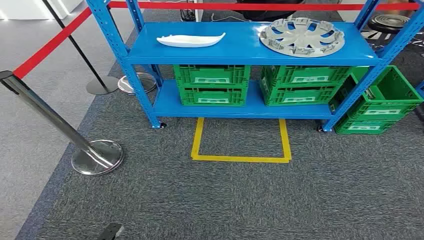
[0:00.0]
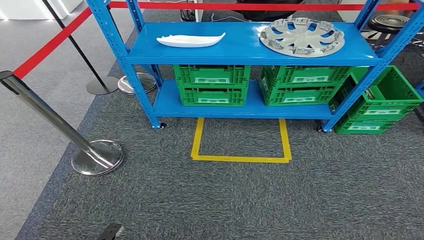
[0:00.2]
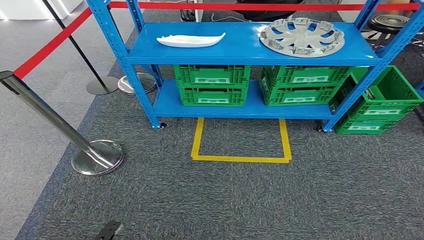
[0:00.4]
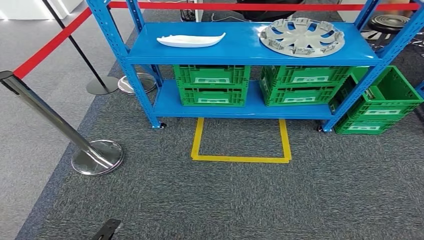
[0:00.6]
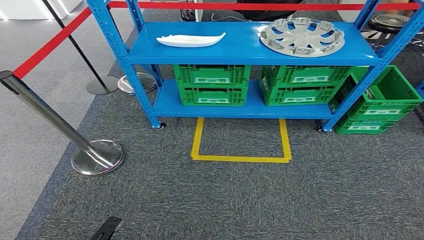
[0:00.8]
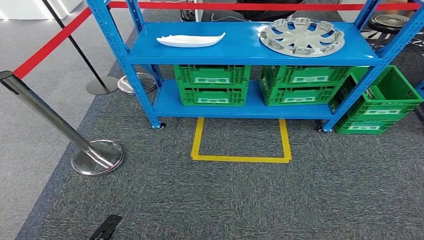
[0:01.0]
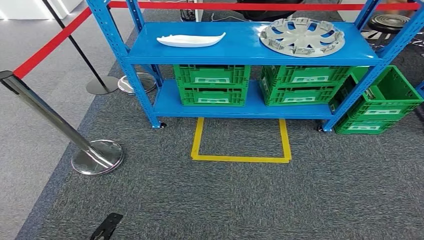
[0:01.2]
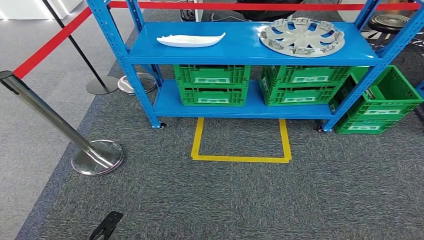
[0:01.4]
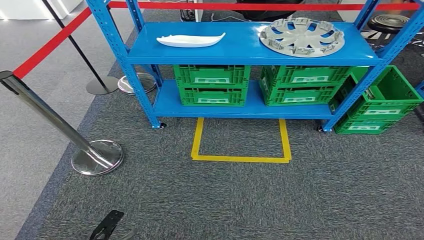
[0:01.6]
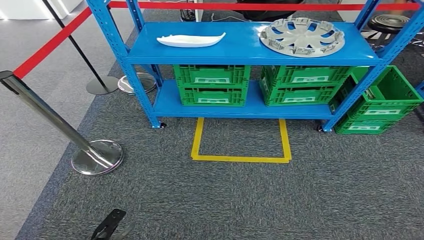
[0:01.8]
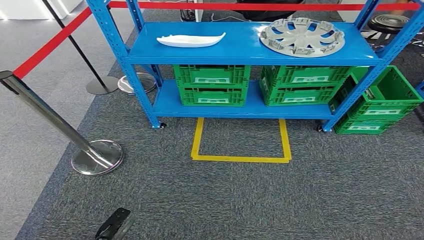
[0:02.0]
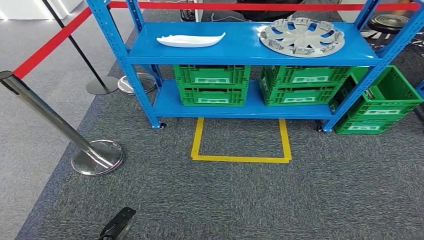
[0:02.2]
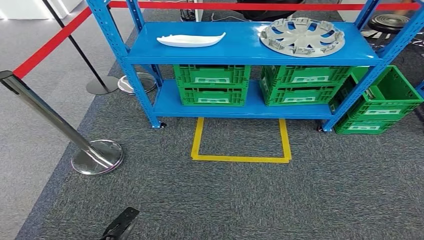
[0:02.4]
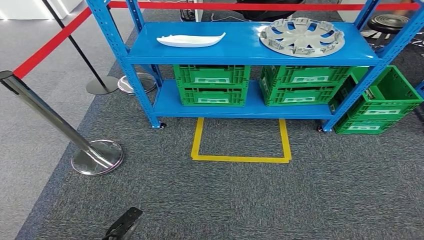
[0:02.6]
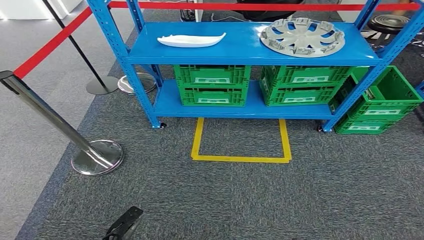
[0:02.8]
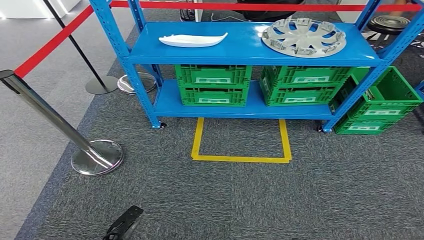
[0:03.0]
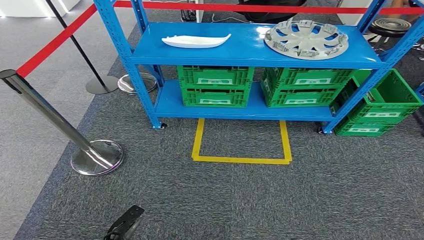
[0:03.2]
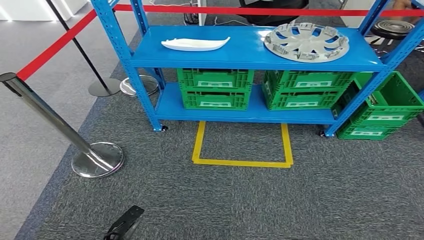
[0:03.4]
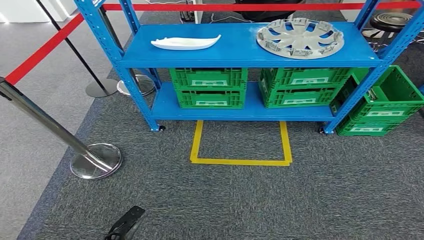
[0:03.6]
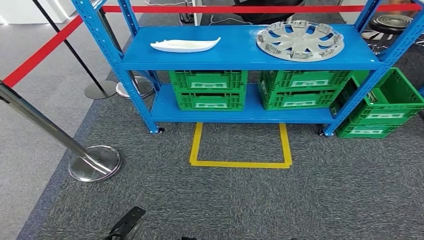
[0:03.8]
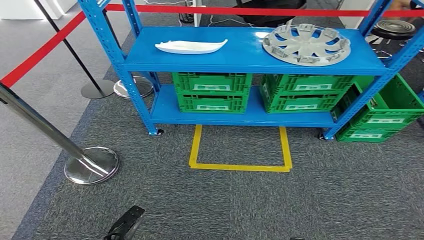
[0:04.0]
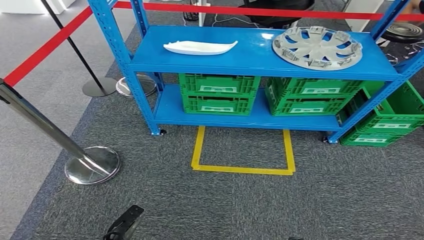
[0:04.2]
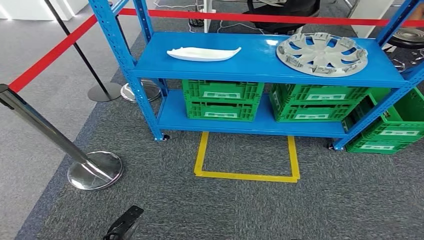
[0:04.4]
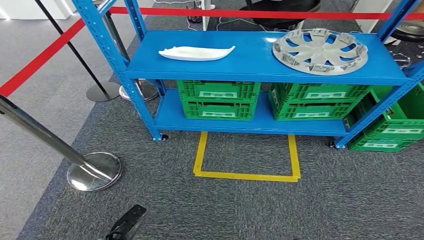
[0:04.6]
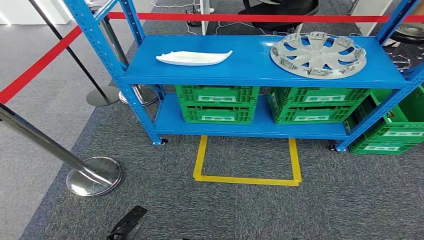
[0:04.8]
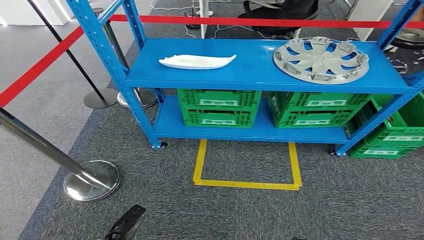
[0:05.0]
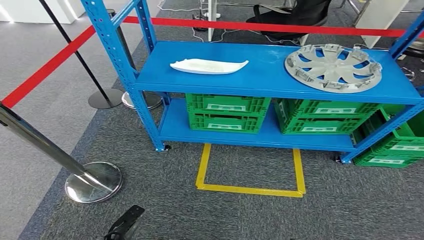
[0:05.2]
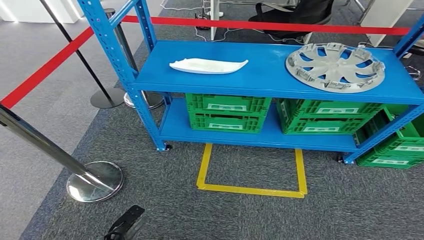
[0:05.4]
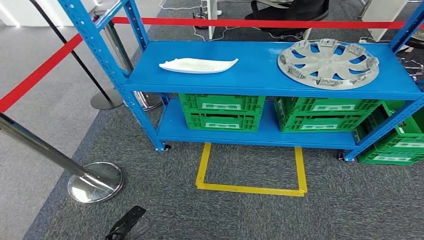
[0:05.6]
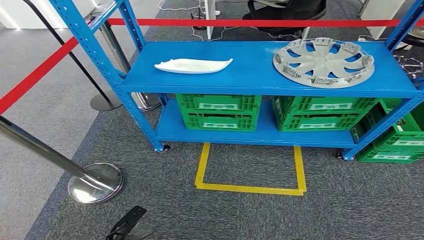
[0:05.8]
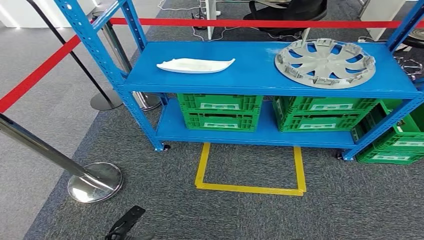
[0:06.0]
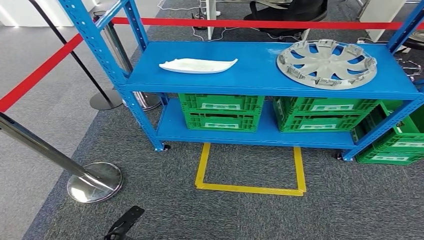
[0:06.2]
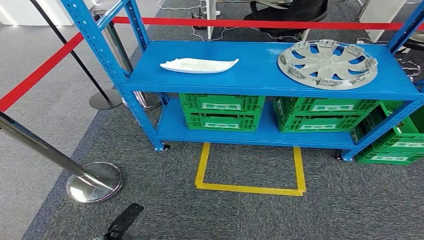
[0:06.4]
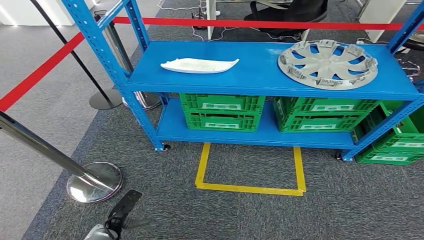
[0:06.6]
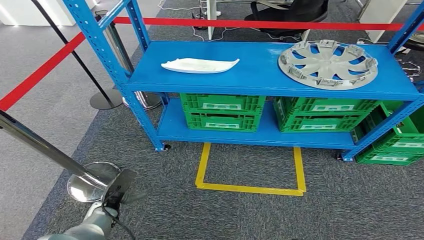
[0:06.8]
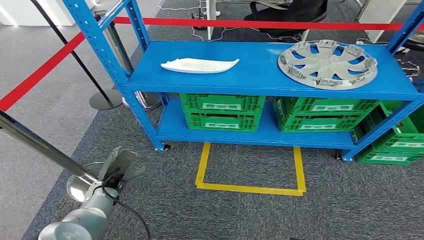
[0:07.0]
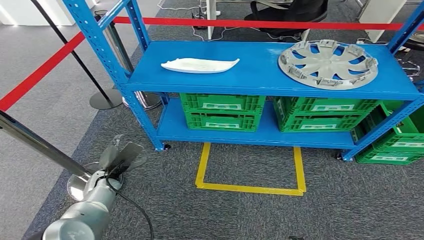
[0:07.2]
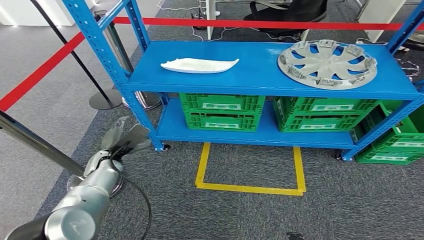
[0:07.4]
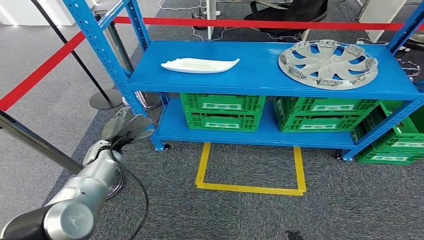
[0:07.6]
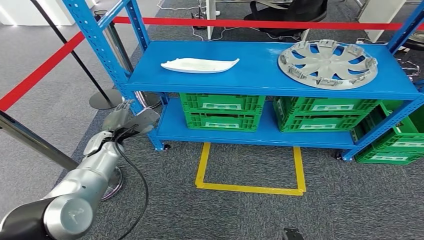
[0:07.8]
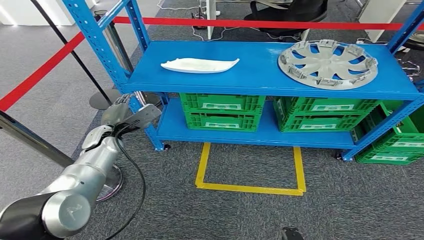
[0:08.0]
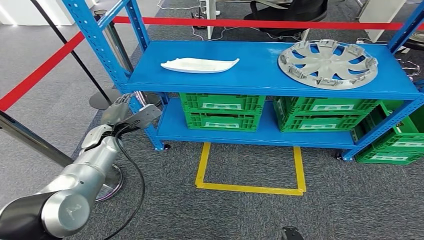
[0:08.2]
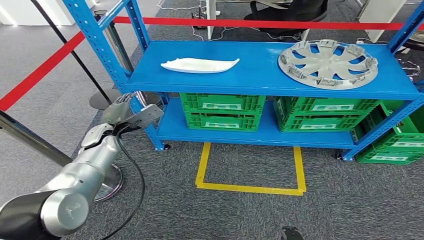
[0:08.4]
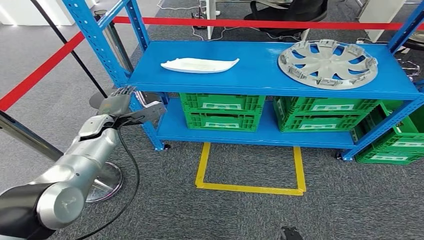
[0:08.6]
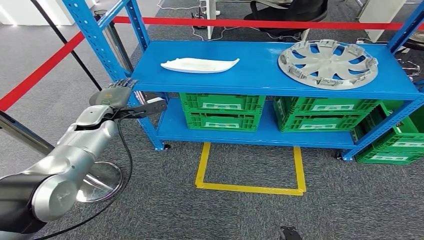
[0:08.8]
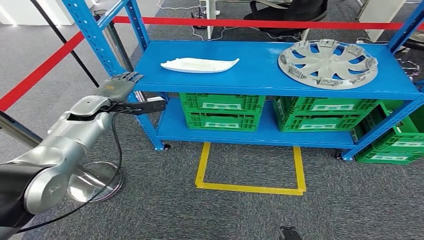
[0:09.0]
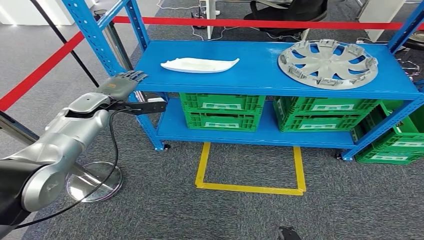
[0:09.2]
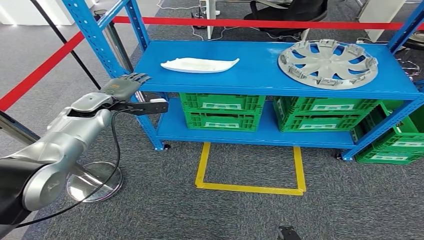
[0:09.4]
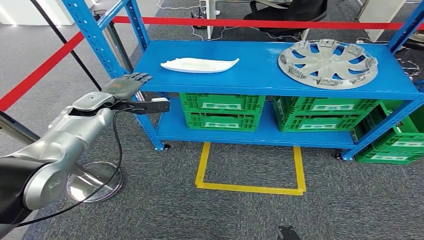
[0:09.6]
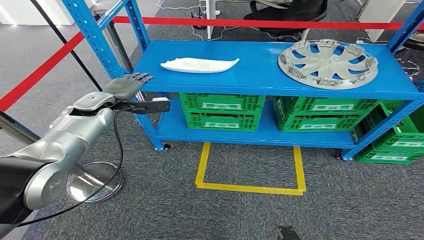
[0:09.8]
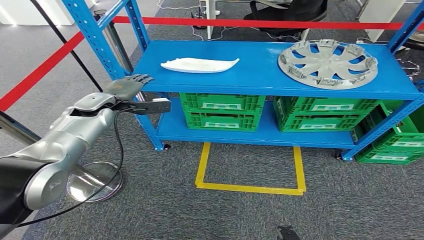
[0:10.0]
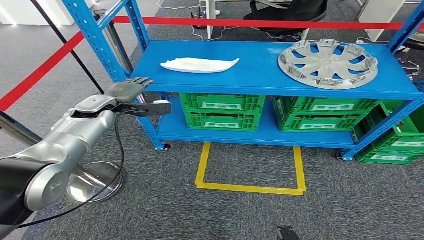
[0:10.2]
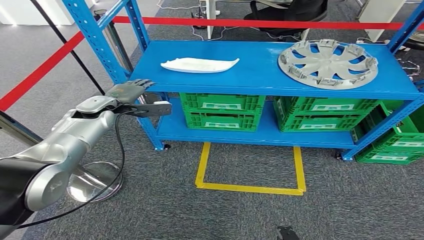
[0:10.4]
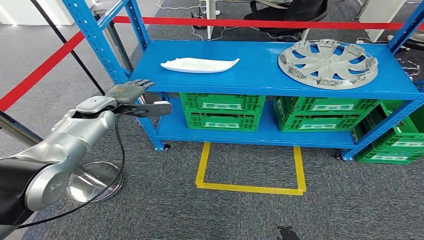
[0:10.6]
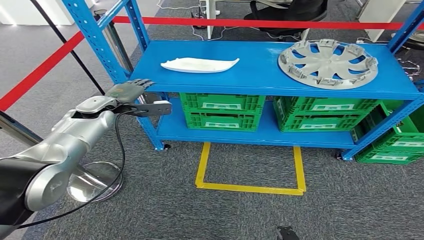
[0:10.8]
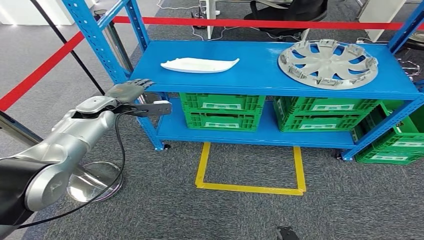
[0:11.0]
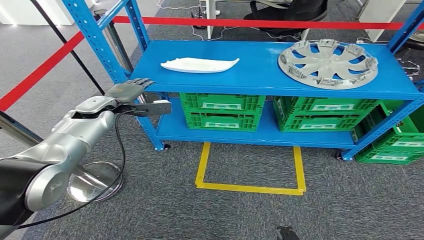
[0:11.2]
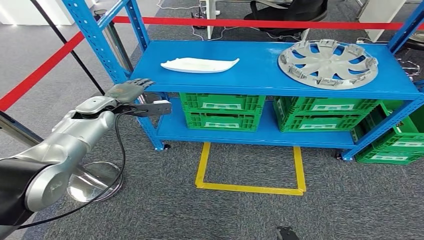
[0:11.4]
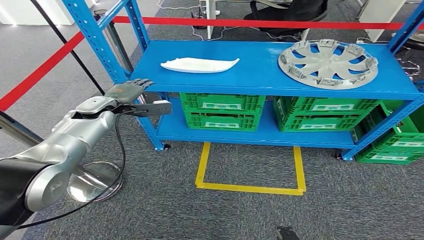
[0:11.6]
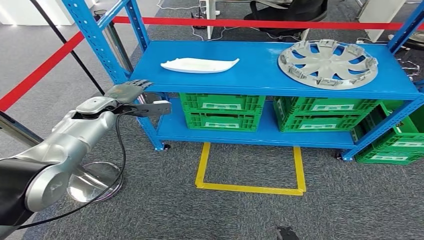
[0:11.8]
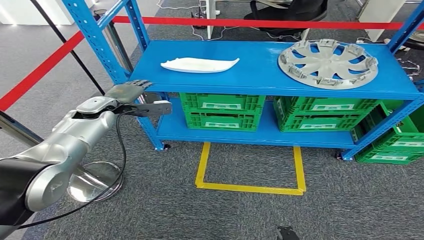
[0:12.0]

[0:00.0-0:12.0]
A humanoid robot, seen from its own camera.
0:01.6 to 0:03.0: The right hand shifts by approximately 5 cm.
0:06.0 to 0:07.6: The left hand heads forward and upward, covering approximately 30 cm.
0:07.6 to 0:09.0: The left hand travels upward and forward by about 15 cm.
0:09.0 to 0:10.4: The hands stay close to where they were, moving slightly.
0:10.4 to 0:12.0: Neither hand changes place.

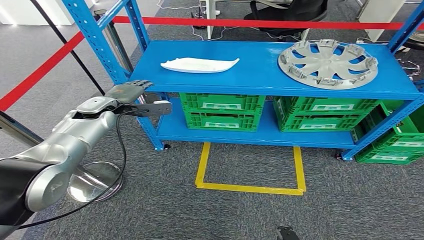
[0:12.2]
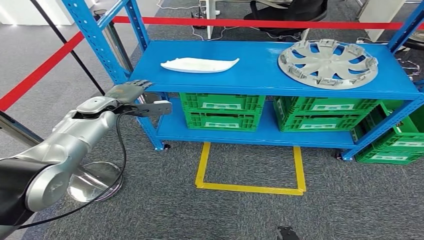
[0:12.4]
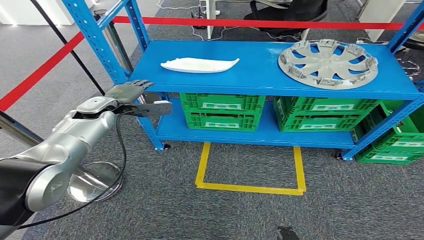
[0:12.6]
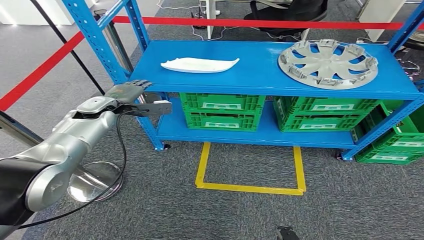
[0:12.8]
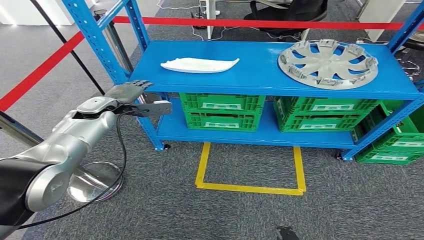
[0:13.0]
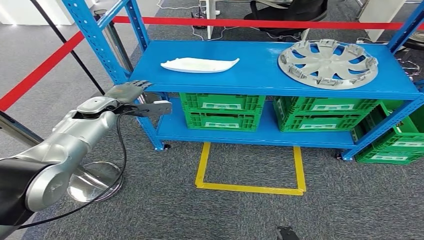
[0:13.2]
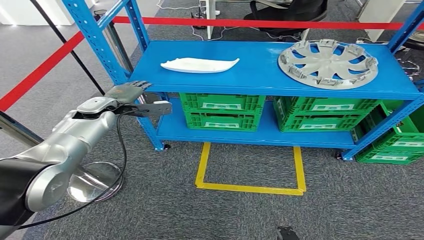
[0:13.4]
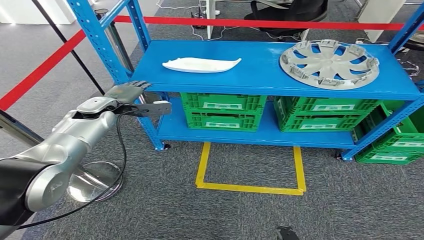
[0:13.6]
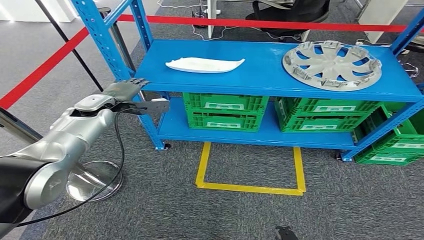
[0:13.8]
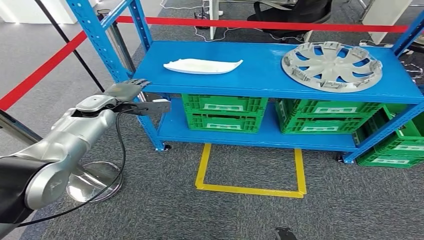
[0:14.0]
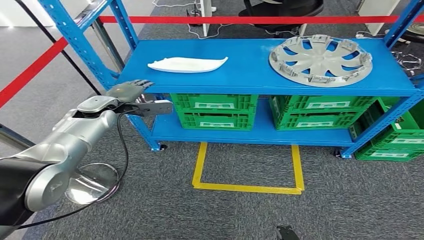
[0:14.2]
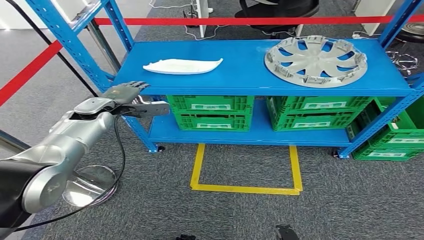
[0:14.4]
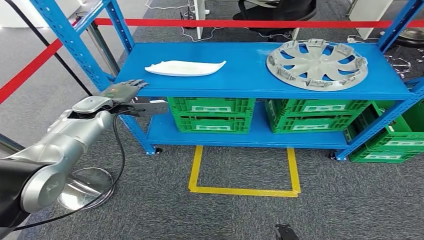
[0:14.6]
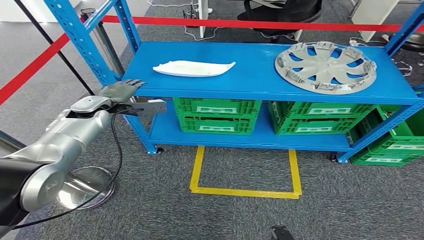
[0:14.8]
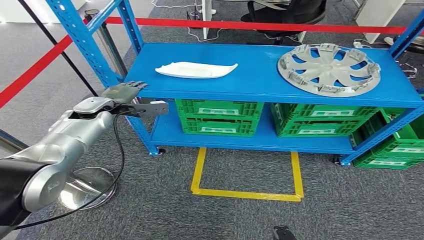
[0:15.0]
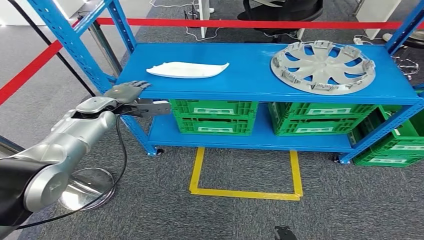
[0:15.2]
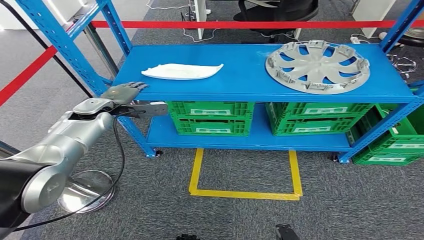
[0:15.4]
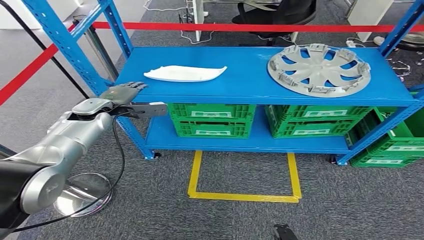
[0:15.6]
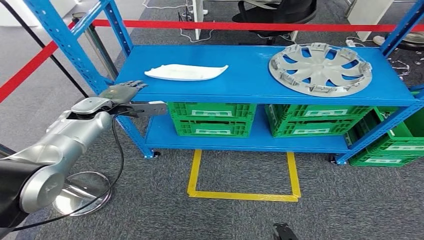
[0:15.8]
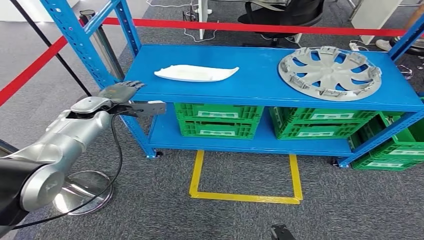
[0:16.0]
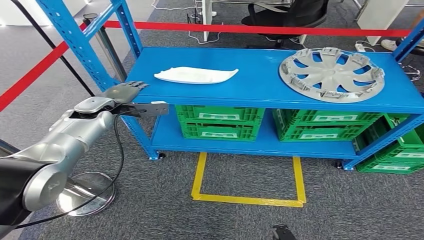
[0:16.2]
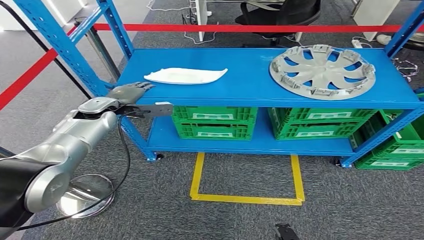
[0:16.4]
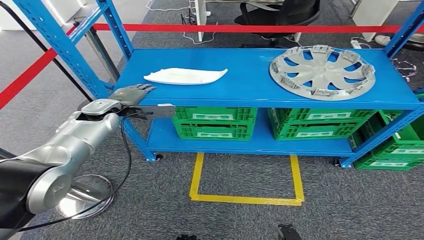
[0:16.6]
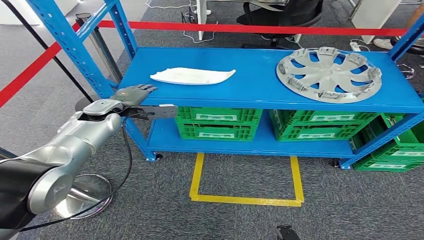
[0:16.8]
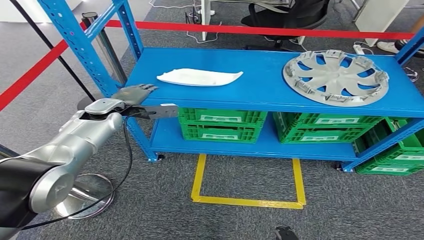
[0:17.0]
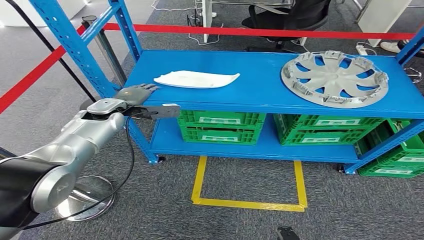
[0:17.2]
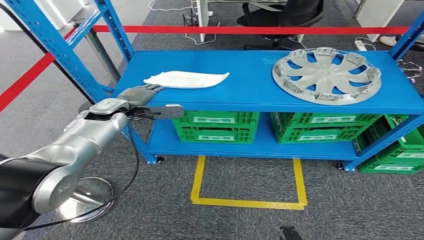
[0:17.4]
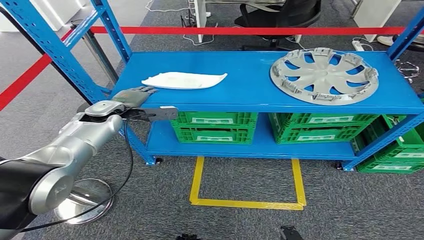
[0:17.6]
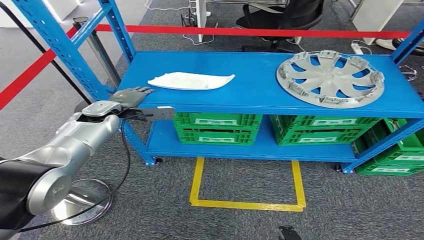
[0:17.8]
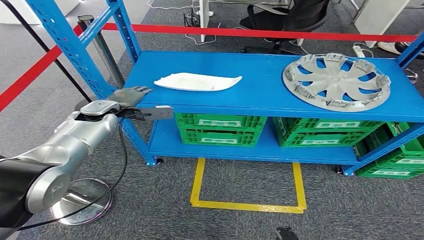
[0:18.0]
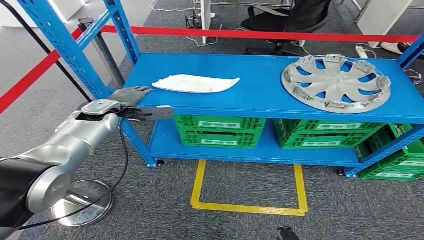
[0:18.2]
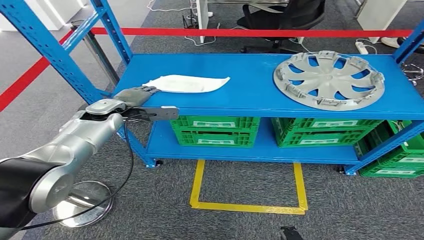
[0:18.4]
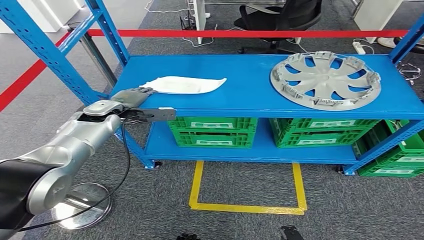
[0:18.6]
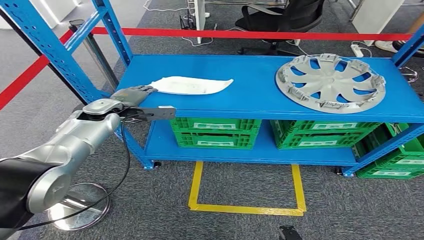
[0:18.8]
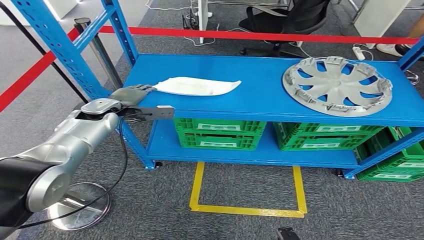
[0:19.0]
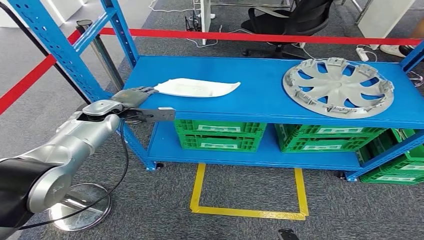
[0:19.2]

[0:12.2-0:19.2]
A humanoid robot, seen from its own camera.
0:12.2 to 0:13.6: Neither hand changes place.
